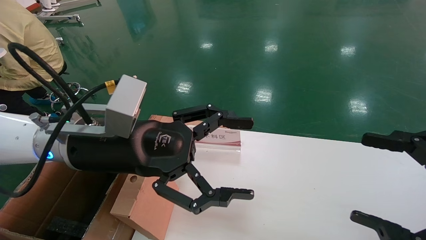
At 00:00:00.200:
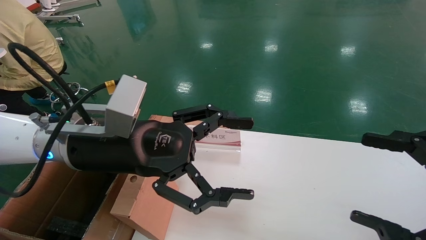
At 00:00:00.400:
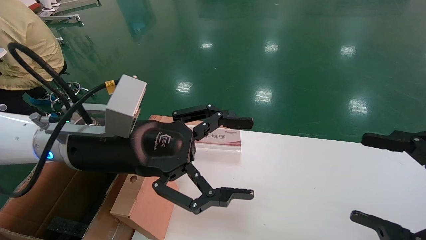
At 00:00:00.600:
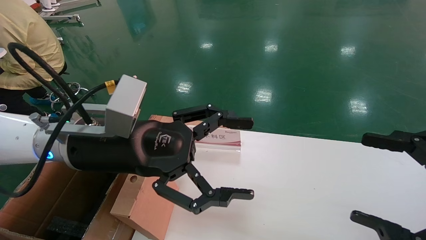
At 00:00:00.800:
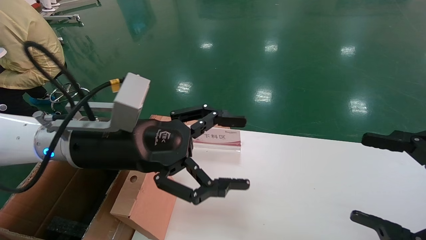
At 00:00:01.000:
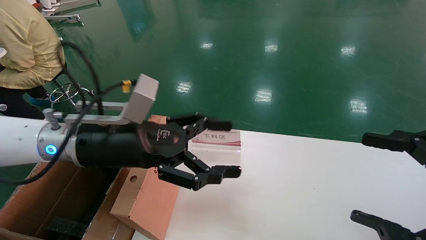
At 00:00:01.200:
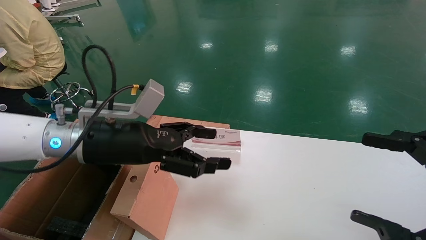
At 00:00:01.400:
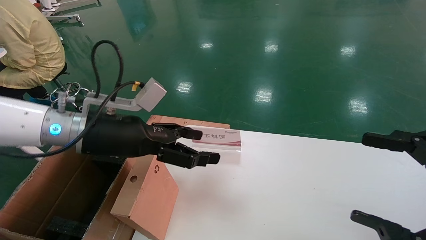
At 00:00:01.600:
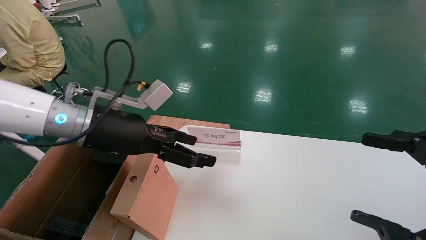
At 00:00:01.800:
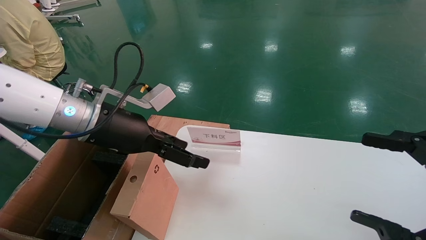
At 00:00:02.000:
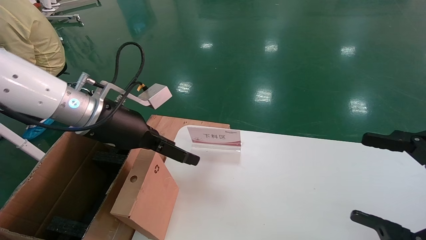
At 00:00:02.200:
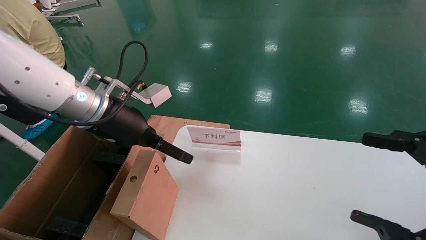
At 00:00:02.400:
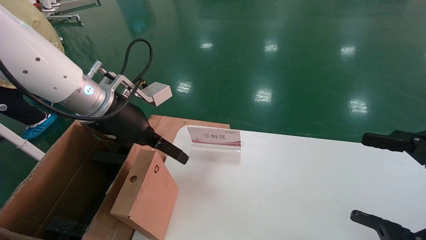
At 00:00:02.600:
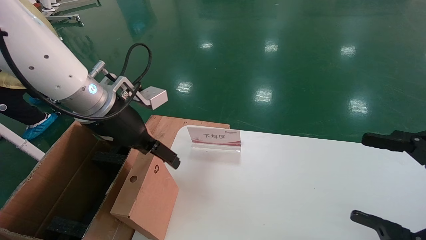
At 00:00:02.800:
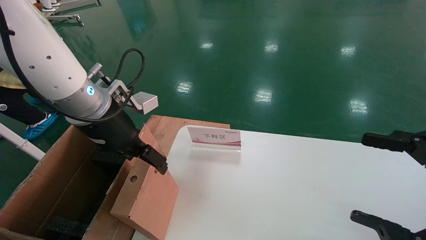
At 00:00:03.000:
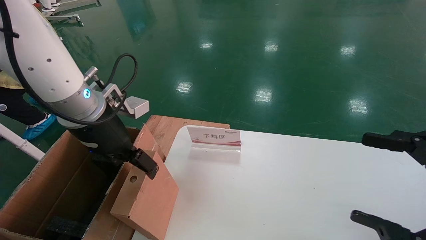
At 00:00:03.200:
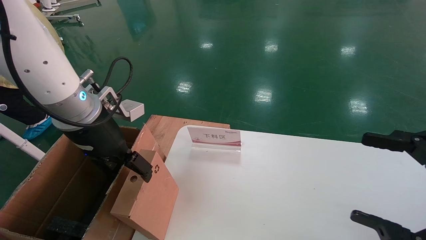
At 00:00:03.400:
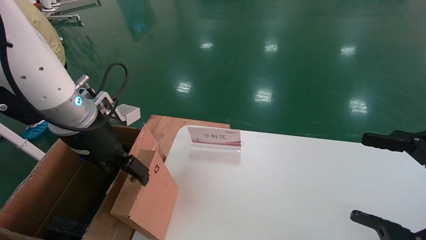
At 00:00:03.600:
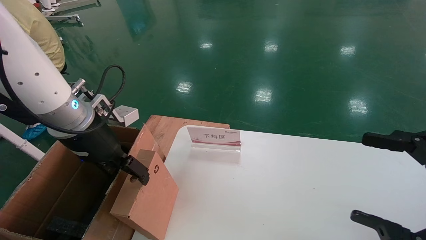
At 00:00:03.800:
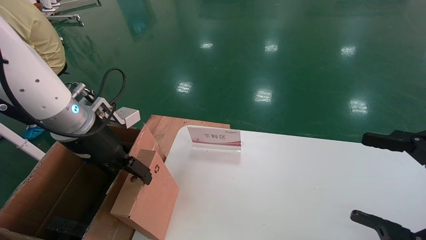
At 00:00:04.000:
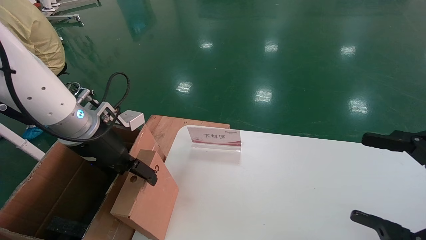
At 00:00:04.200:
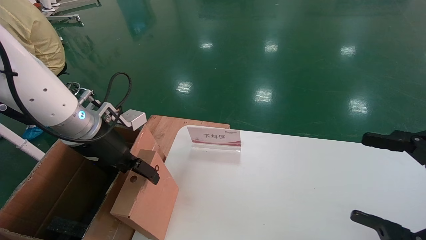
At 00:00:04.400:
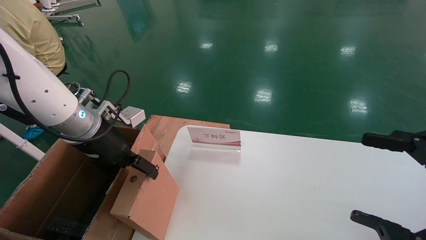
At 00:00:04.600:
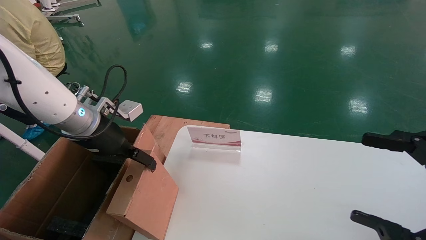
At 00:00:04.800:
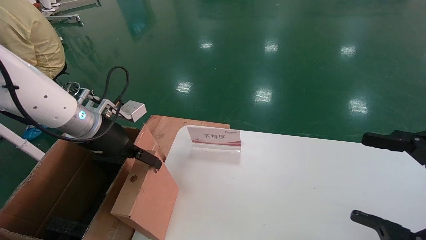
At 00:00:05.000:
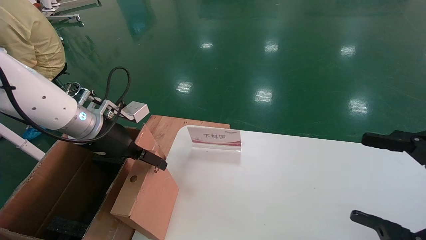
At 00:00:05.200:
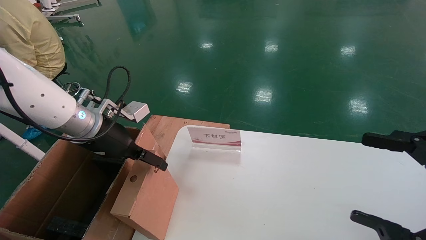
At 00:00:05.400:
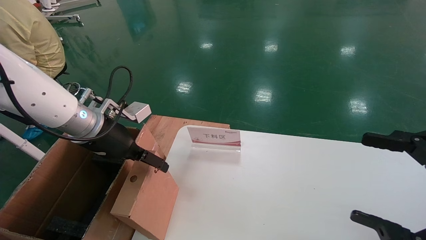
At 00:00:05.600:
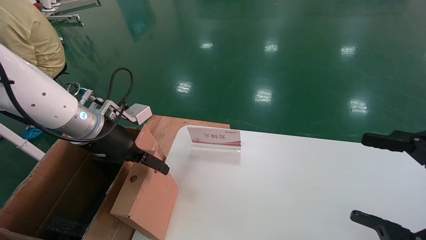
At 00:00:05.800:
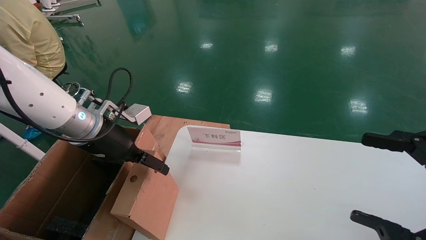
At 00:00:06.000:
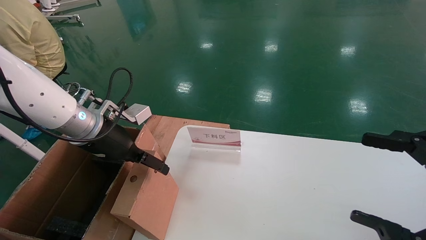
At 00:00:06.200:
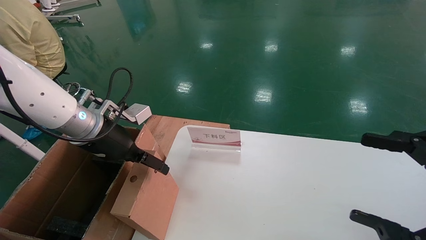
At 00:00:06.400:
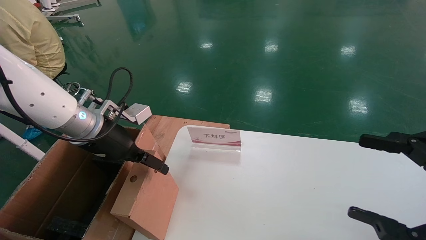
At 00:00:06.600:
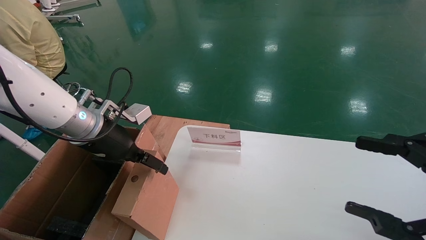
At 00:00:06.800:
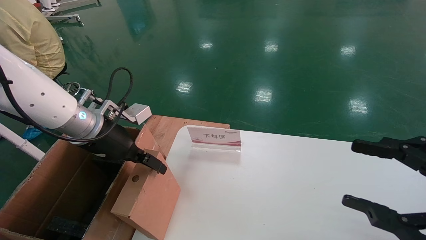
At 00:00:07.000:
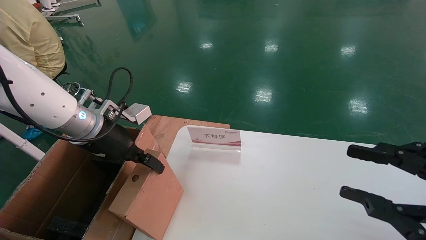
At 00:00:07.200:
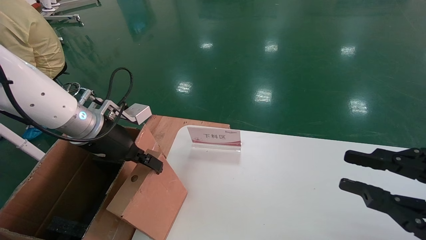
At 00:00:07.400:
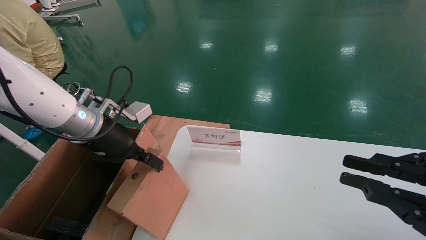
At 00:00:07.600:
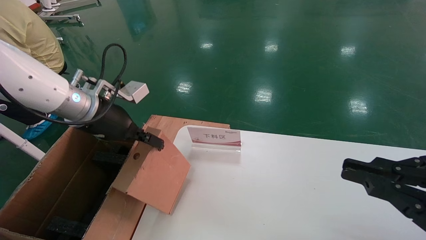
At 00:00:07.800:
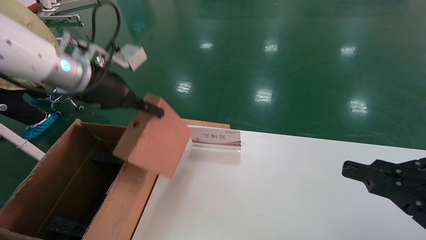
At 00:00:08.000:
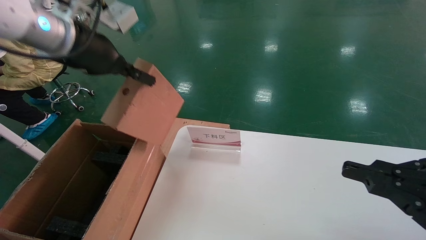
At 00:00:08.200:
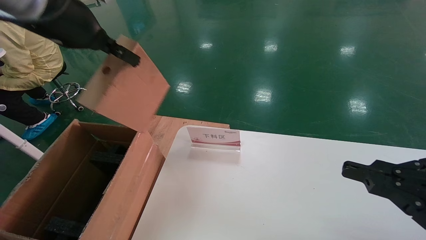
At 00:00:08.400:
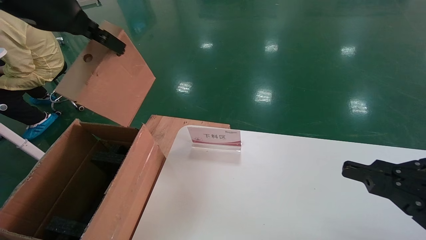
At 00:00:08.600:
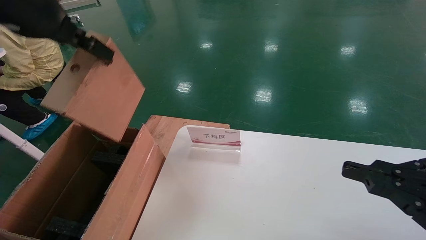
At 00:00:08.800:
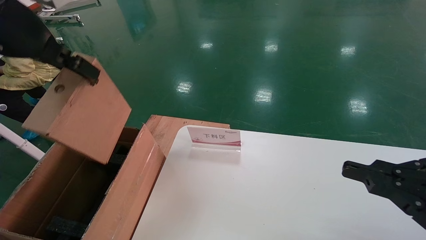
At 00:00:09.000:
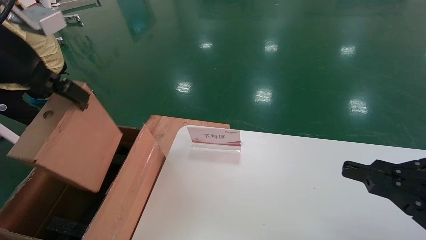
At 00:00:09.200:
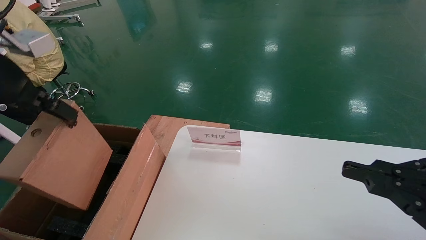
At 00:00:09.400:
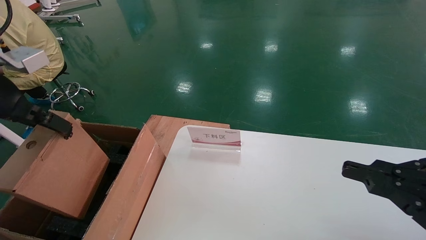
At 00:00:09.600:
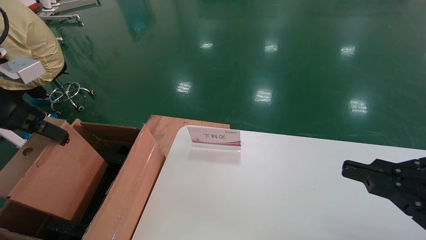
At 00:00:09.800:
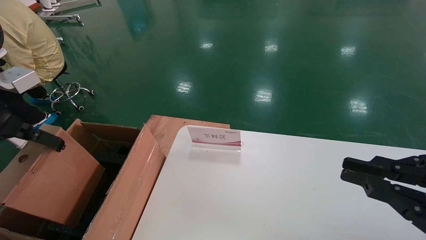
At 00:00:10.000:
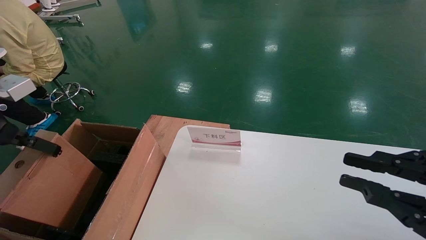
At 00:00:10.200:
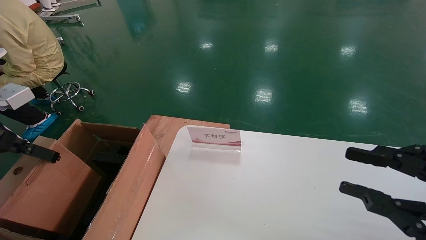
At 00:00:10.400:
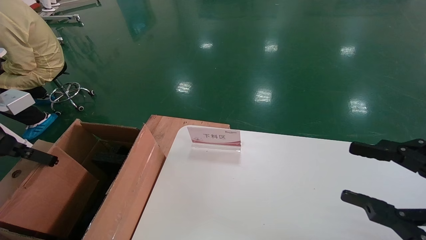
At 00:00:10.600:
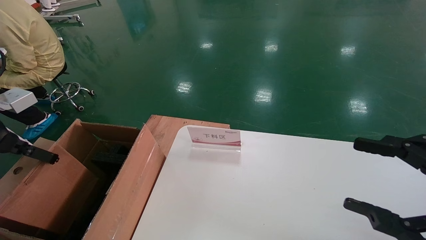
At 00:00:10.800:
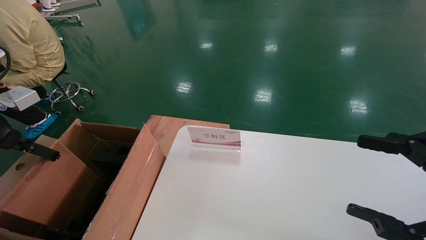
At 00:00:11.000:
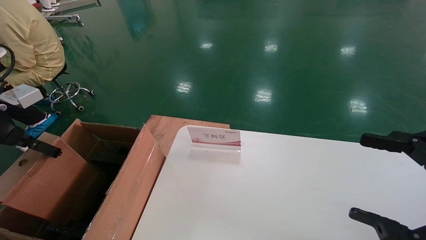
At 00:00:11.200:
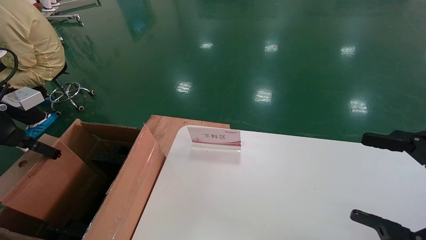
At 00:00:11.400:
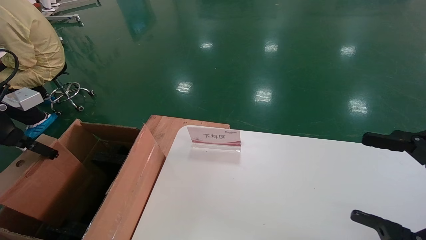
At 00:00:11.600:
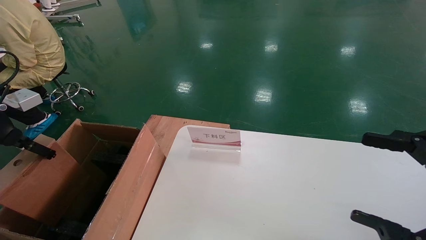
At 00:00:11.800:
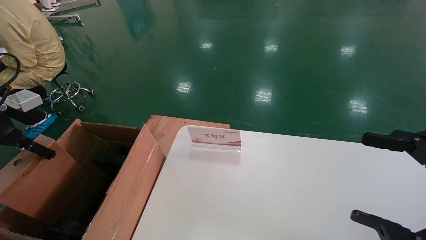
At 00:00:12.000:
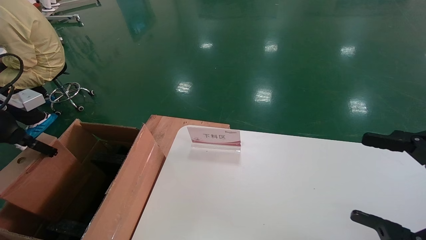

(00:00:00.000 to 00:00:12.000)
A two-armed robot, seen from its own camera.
Task of the whole recording: pick up the small cardboard box and load it into the large cardboard box.
Step, 00:00:01.200 - 00:00:07.200: Pick up the mouse and power cord box.
00:00:00.000 - 00:00:01.600: The left gripper ends up some 5 cm from where it was.
00:00:03.000 - 00:00:04.400: The left gripper ends up about 5 cm from where it was.
00:00:04.400 - 00:00:06.000: The grippers move only a little.
00:00:06.000 - 00:00:07.600: The left gripper travels upward by about 5 cm, and closes up, while the right gripper closes up.
00:00:07.600 - 00:00:09.000: The left gripper goes some 15 cm upward and backward.
00:00:09.000 - 00:00:10.400: The right gripper opens. The left gripper heads to the left and downward, covering some 20 cm.
00:00:10.400 - 00:00:12.000: The right gripper opens up, while the left gripper travels to the left and forward by approximately 10 cm.

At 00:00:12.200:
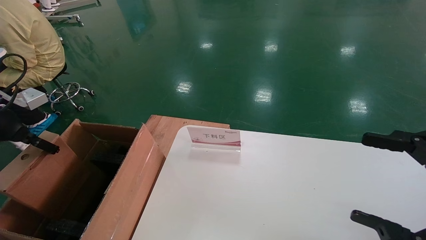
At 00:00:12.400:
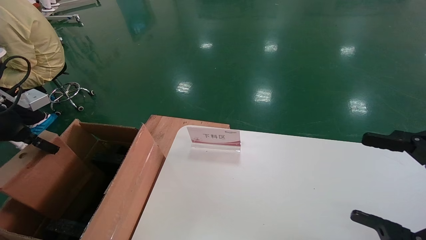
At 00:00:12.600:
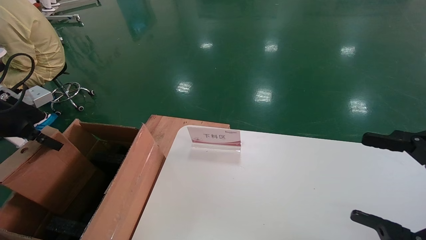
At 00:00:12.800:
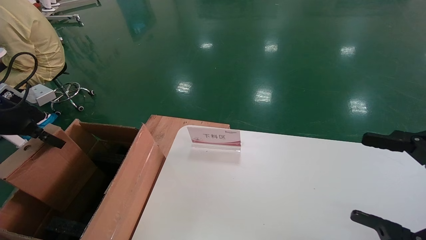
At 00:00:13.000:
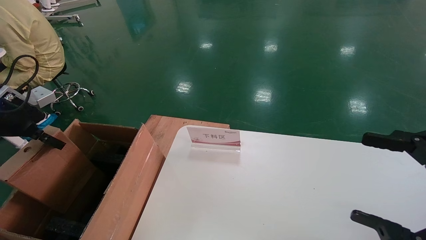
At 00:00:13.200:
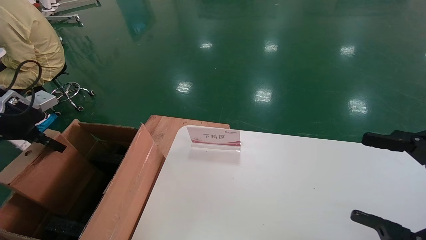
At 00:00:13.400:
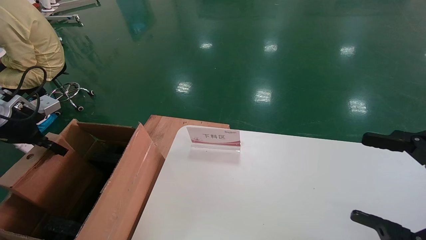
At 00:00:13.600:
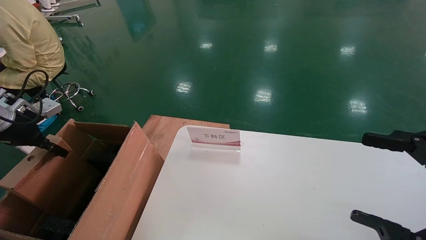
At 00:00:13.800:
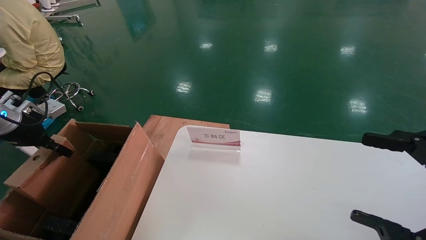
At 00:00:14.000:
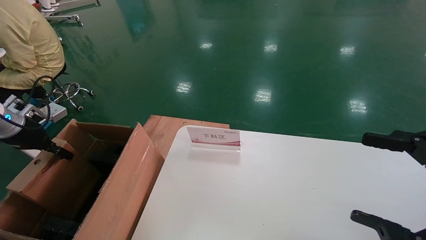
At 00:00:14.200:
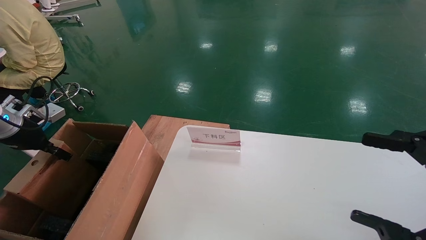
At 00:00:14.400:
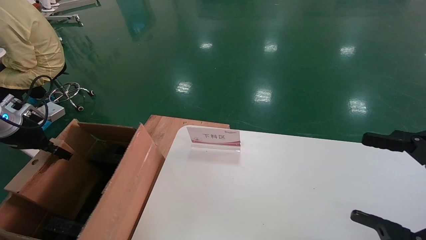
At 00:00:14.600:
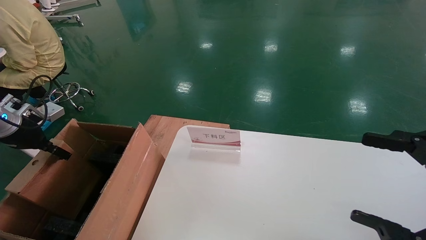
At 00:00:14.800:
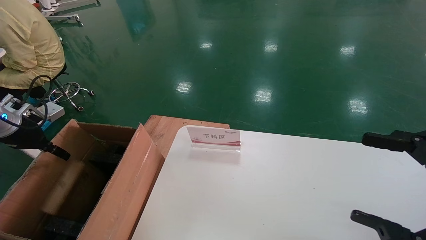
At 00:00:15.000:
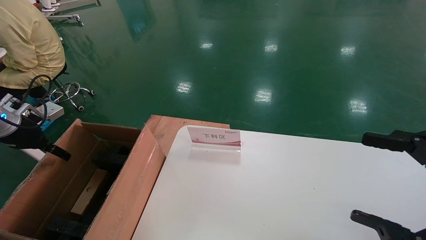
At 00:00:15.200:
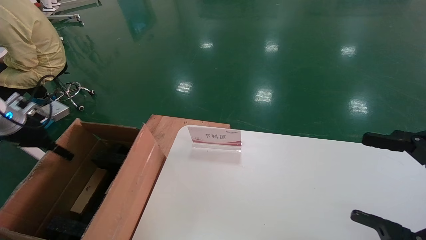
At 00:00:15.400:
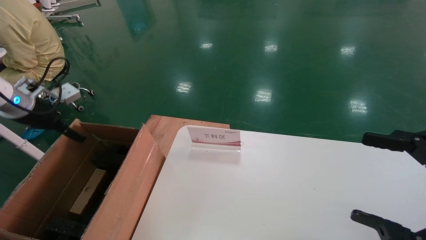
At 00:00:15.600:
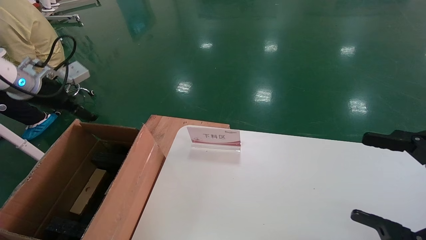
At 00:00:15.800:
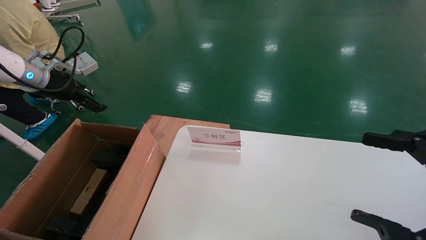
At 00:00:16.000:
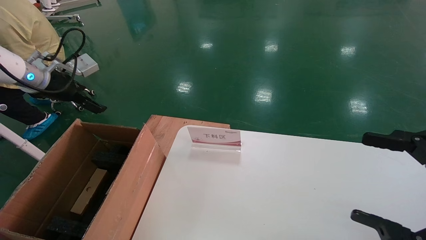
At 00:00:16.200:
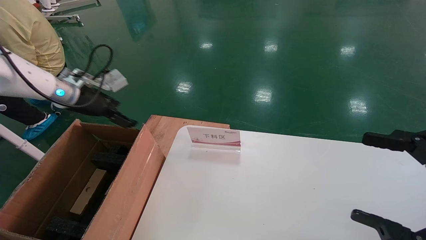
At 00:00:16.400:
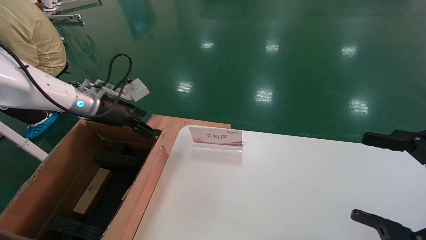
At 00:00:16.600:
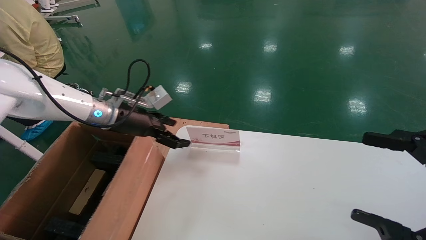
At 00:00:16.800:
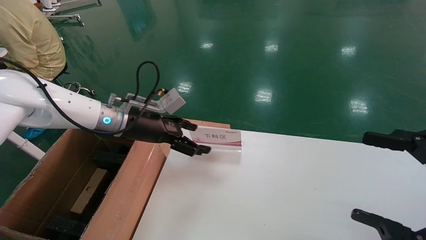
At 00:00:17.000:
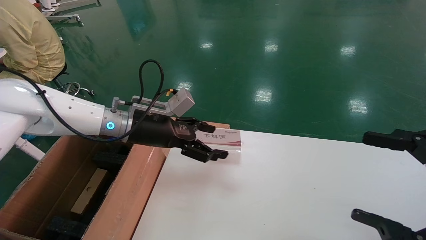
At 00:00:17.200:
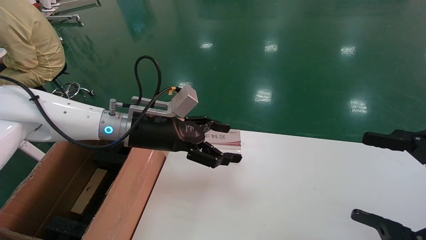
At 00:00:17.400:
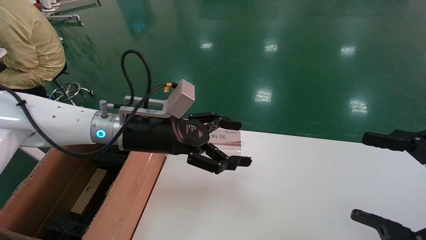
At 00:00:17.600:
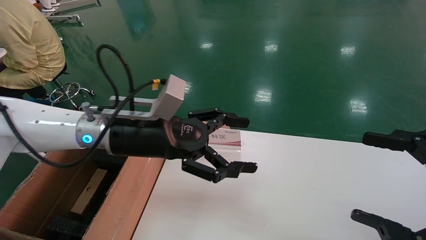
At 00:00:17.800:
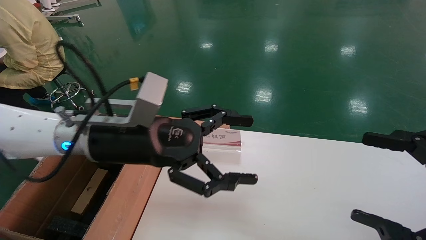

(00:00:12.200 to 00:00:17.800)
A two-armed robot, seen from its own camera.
Task of the whole recording: pick up the small cardboard box and load it into the large cardboard box.
Step, 00:00:12.200 - 00:00:14.800: Place the mouse and power cord box into the case.
00:00:12.200 - 00:00:13.600: The left gripper moves approximately 5 cm.
00:00:13.600 - 00:00:15.000: The left gripper opens its fingers.
00:00:15.000 - 00:00:16.400: The left gripper goes roughly 20 cm to the right and forward, and opens its fingers.
00:00:16.400 - 00:00:17.800: The left gripper goes approximately 20 cm to the right and backward.
